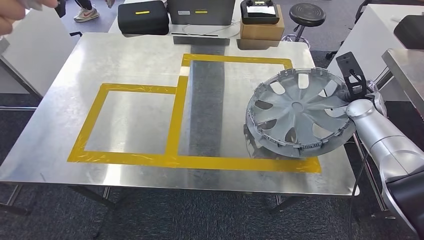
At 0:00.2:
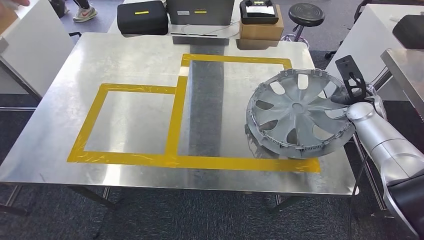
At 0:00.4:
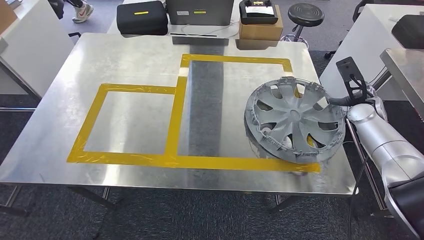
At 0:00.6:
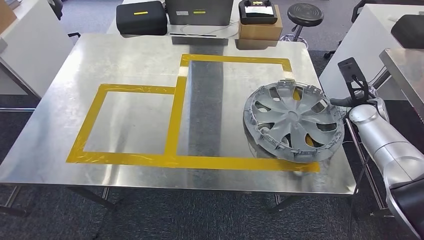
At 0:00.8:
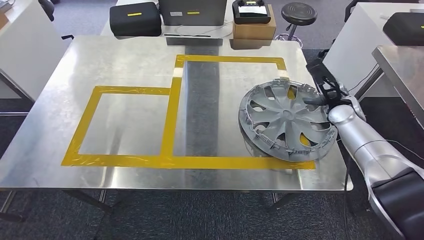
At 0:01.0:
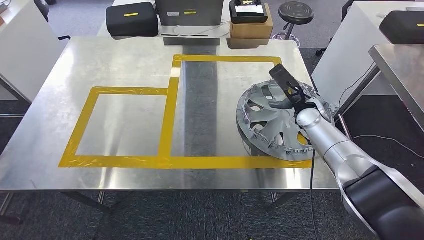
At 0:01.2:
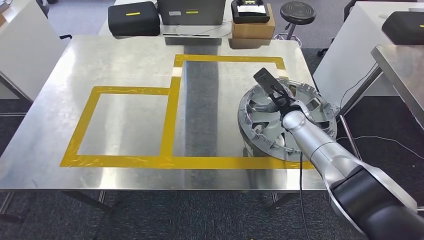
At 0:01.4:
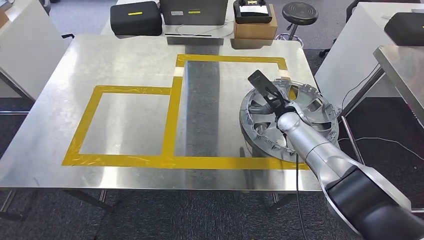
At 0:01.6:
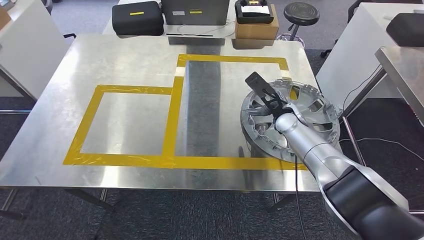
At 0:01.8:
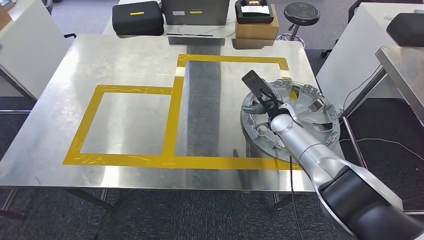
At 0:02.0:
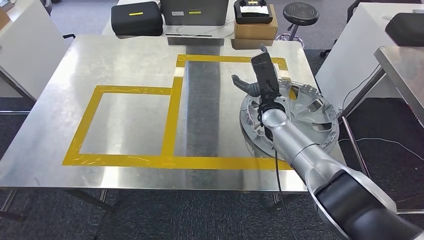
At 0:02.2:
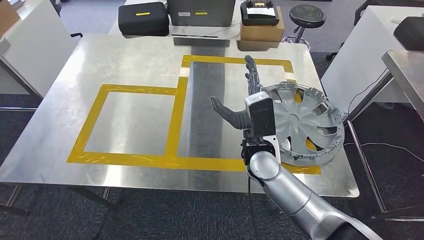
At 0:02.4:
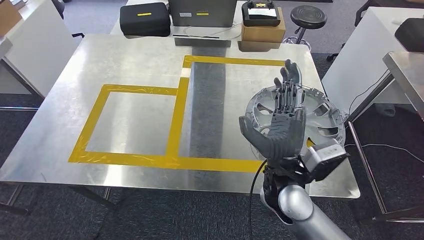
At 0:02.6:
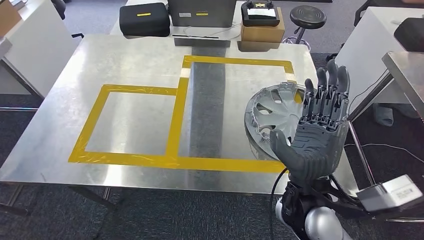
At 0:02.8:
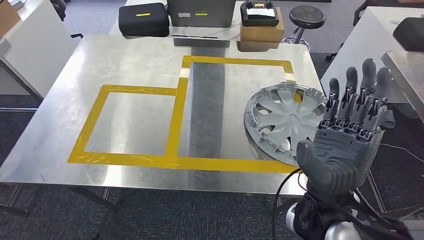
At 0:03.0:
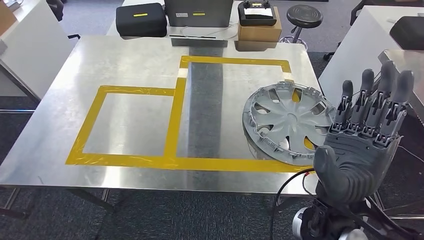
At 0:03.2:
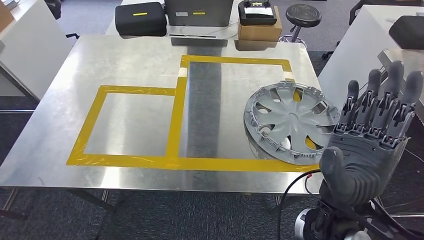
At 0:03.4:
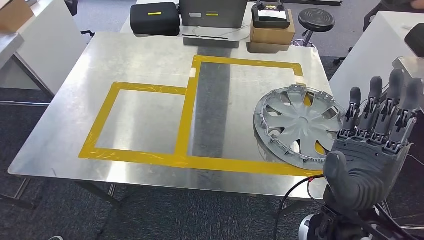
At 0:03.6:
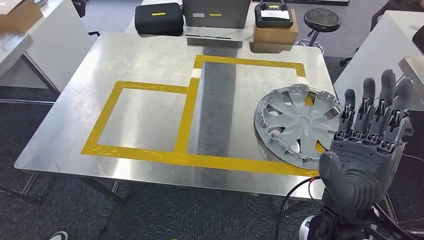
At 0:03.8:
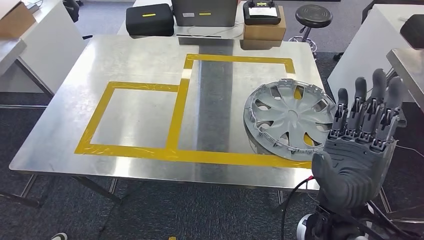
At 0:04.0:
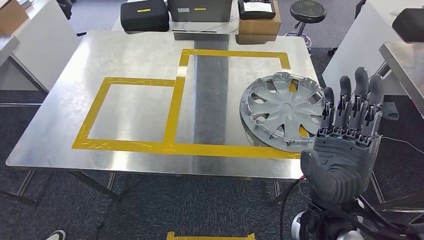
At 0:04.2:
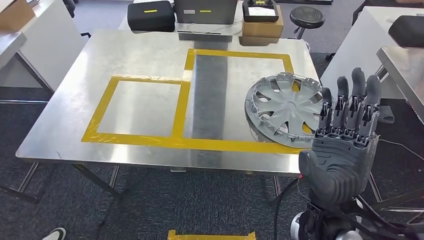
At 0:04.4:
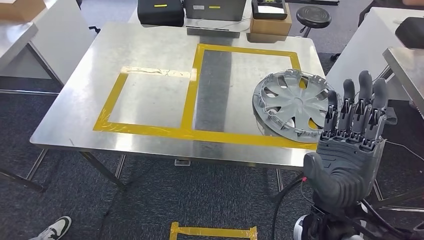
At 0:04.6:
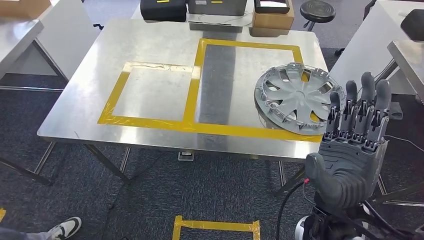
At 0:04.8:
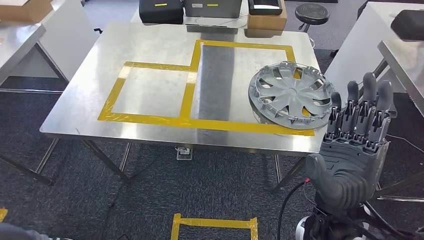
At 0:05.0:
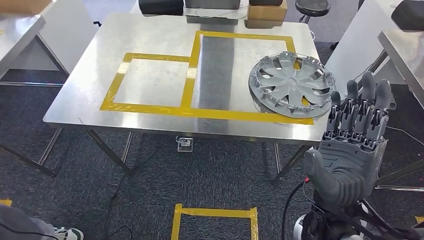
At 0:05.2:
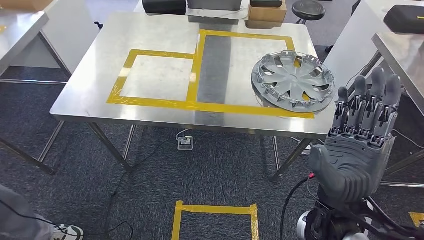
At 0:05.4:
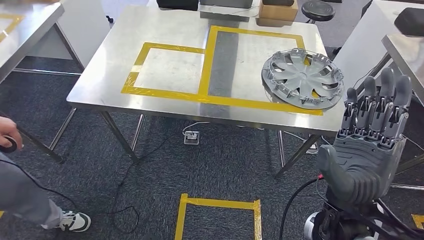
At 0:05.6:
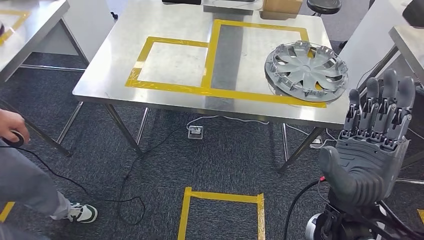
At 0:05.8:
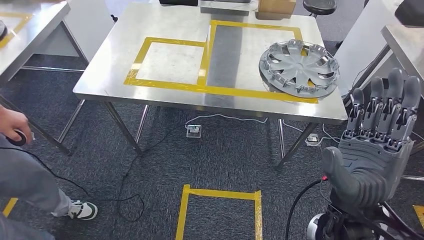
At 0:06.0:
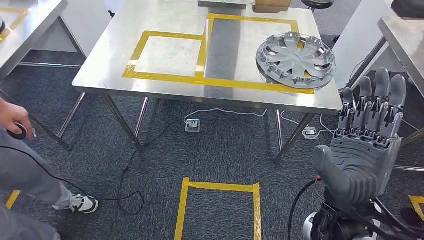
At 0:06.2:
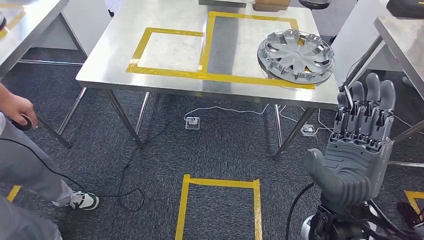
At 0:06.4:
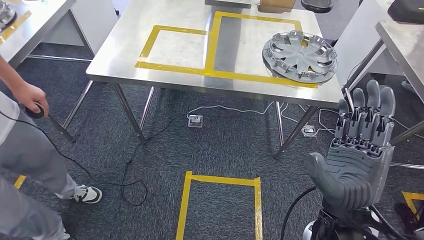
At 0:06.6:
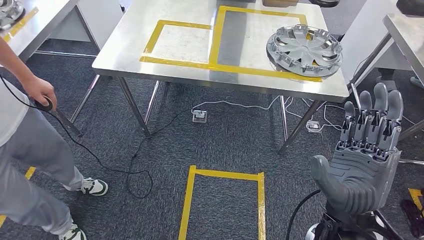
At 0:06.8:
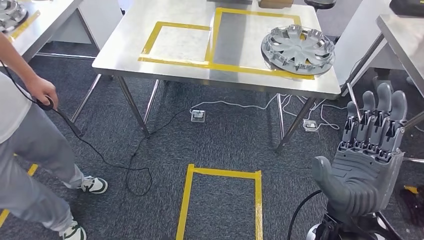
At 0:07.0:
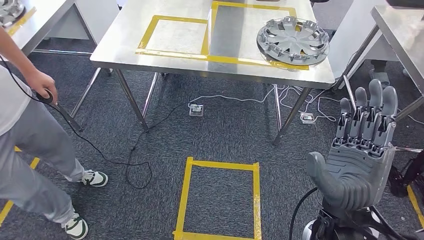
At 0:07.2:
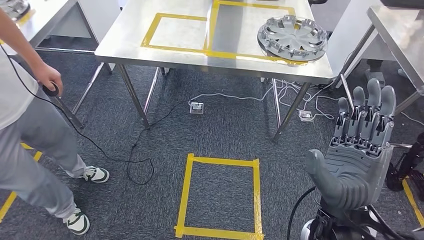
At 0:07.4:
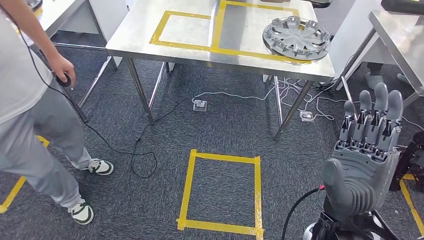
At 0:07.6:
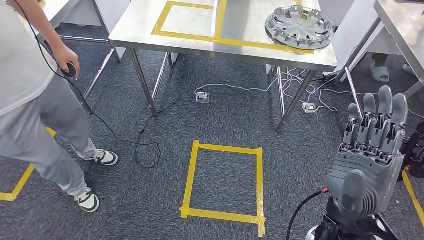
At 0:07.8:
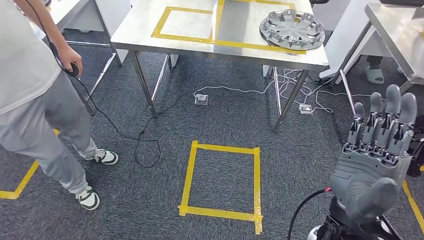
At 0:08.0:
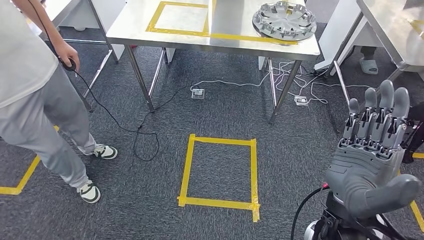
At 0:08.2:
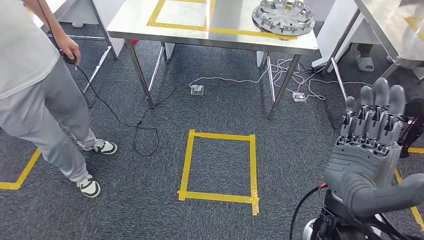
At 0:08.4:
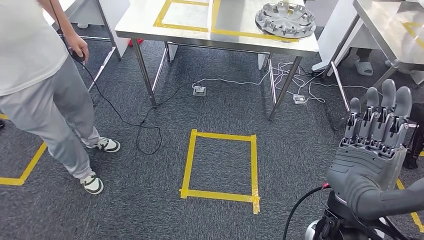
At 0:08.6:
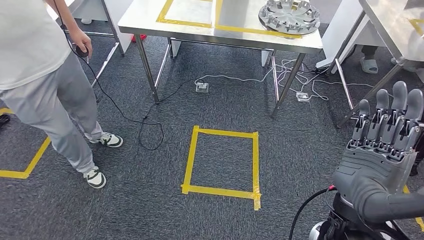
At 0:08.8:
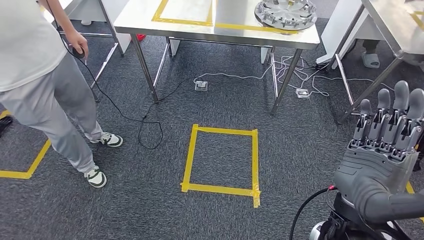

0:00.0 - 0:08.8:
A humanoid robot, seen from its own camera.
Step, 0:00.0 - 0:05.6: Insert the small component into the corresponding slot on the workbench.
Step, 0:05.8 - 0:08.8: Move to the initial position of the workbench.
